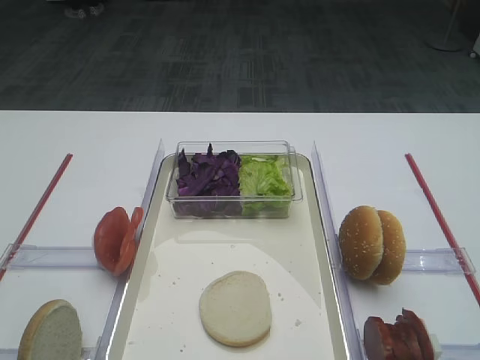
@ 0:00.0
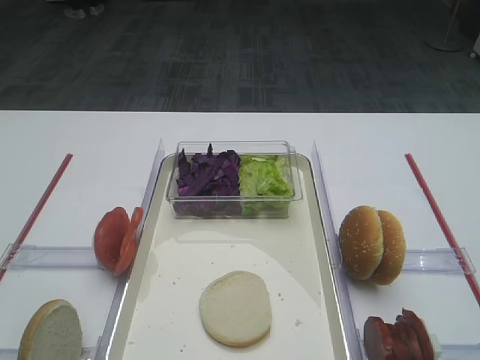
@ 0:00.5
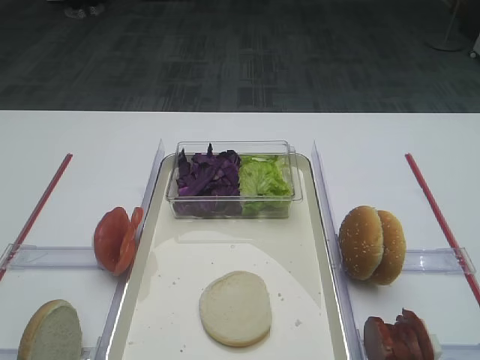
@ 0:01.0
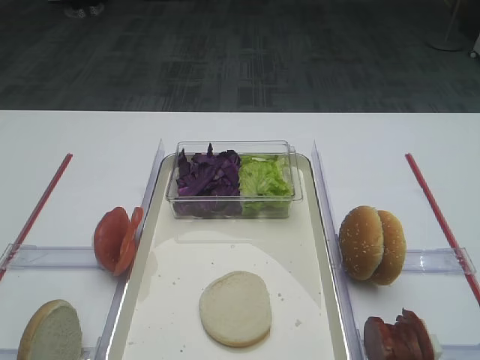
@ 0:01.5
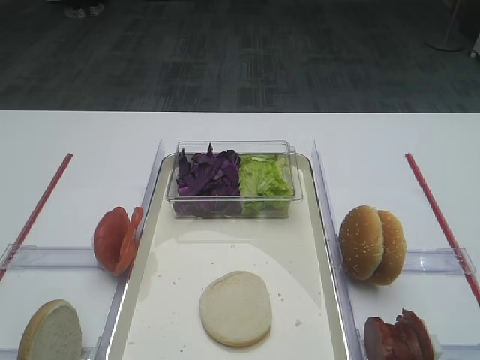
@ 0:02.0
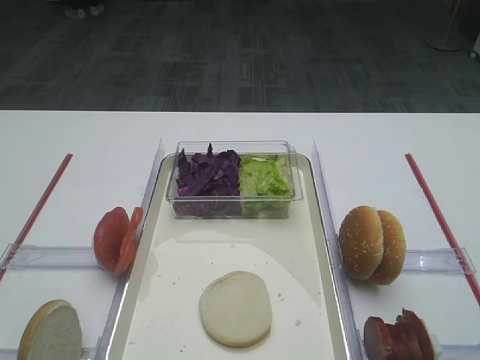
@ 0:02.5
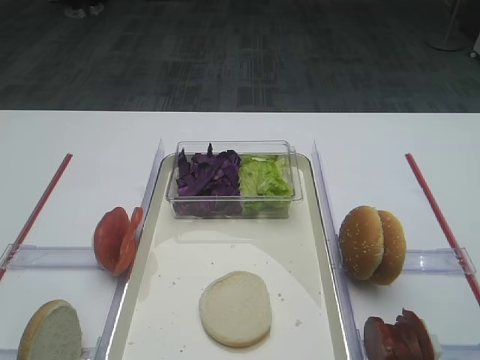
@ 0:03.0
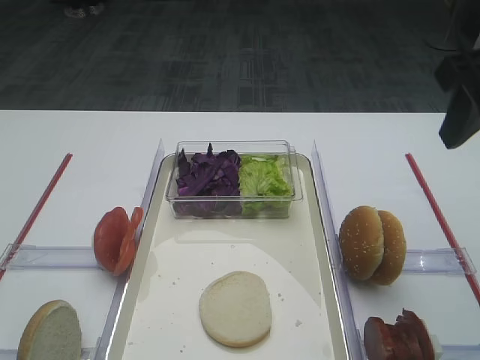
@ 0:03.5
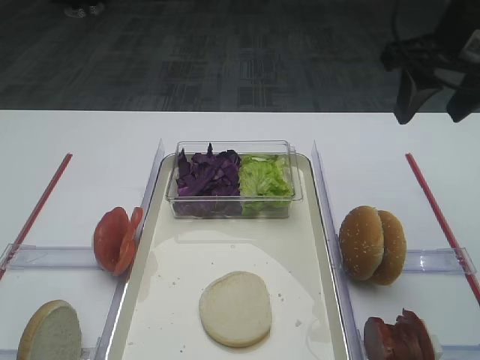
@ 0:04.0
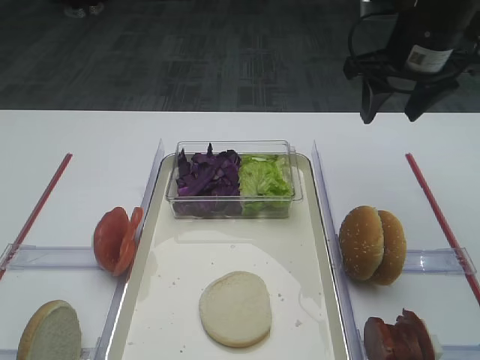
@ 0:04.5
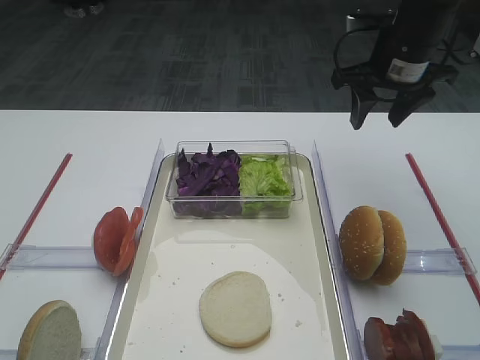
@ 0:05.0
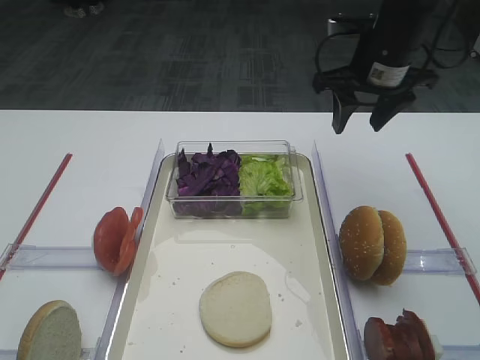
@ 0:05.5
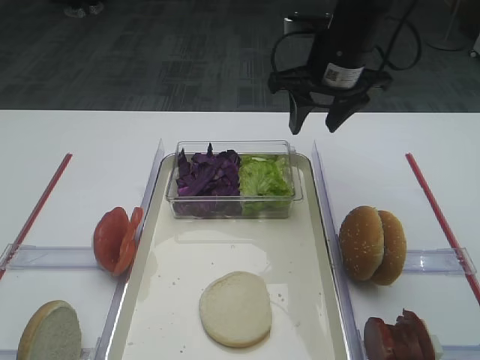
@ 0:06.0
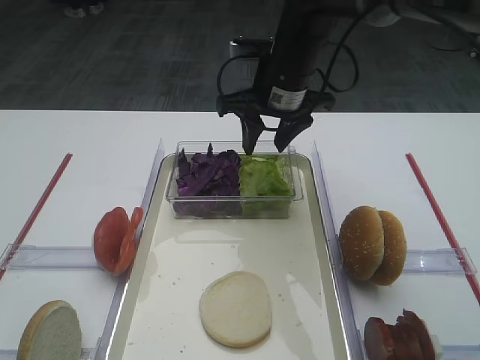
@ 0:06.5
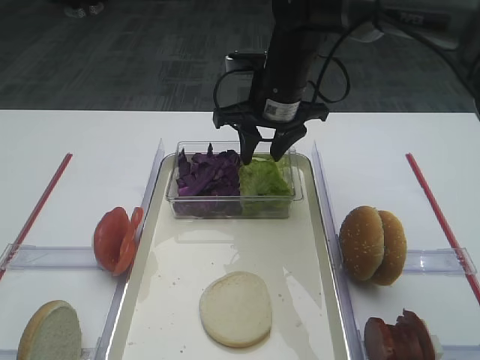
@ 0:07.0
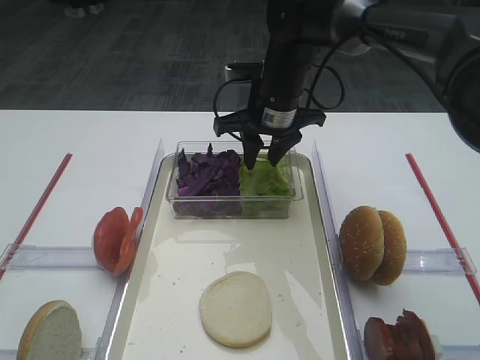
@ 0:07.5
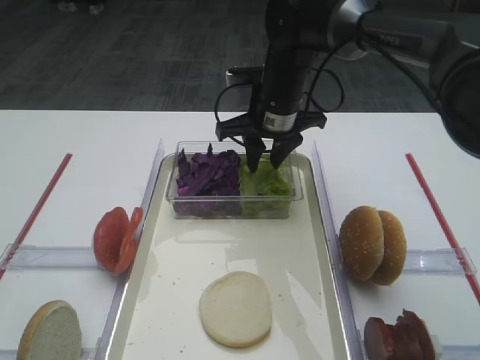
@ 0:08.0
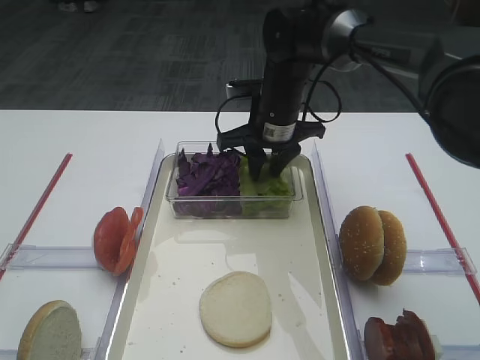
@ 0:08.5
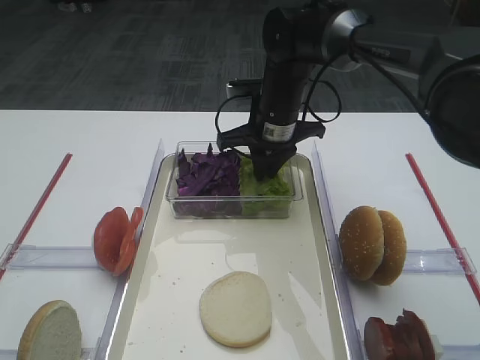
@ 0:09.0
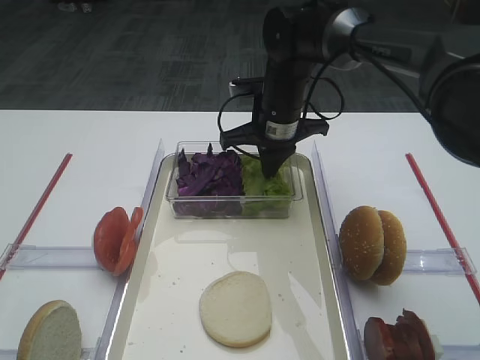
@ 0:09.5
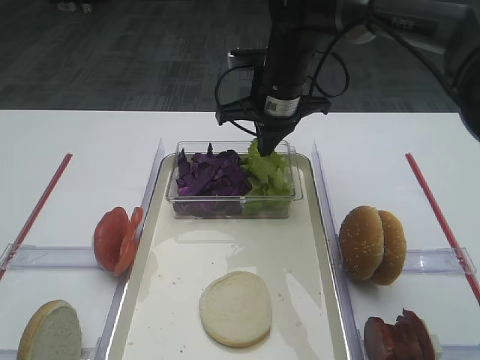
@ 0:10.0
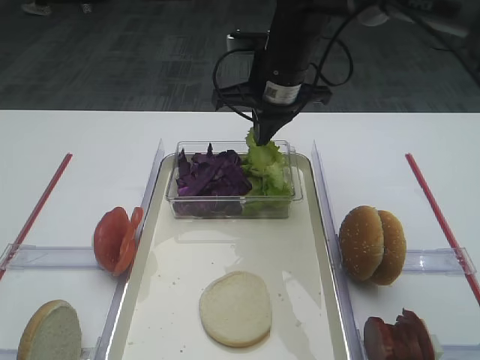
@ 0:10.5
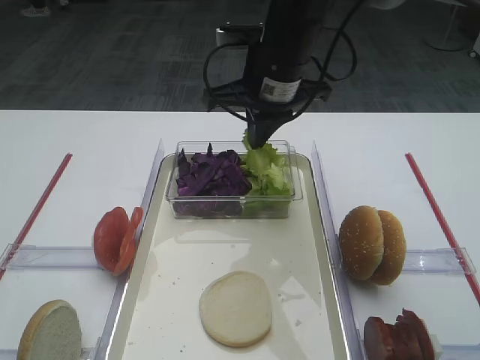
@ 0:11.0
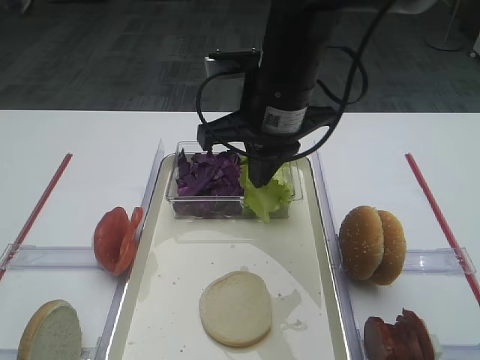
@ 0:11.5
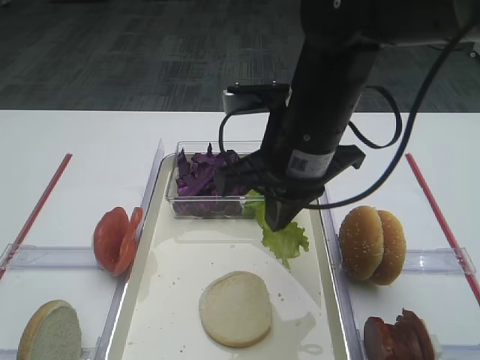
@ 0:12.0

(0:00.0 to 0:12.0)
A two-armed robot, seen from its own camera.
Step, 0:00.0 - 0:10.5: Pick up the lettuce leaf with the right gripper.
0:02.0 - 0:04.0: The right gripper moves forward, approximately 30 cm.
0:04.0 - 0:06.0: The right gripper is displaced forward, to the left and downward by roughly 15 cm.
0:06.0 - 0:08.0: The right gripper is displaced to the left and downward by roughly 10 cm.
0:08.0 - 0:10.0: The right gripper closes up.
0:10.0 - 0:12.0: The right gripper is displaced backward by some 15 cm.

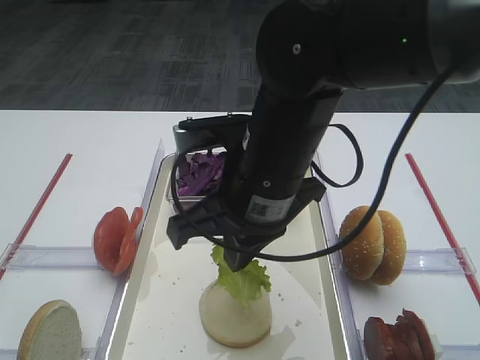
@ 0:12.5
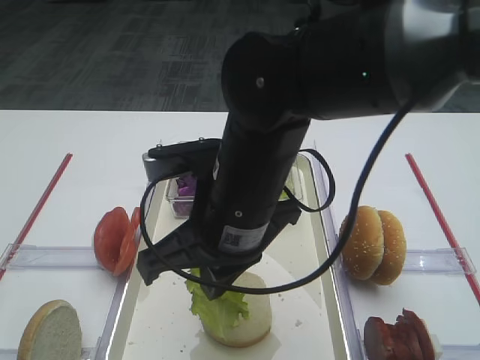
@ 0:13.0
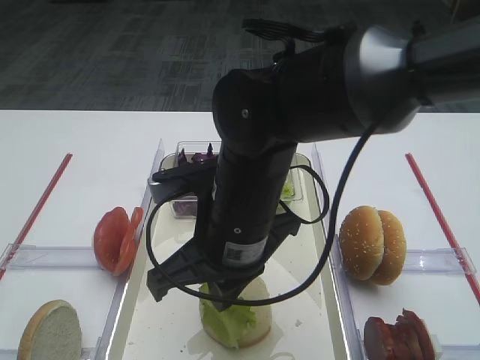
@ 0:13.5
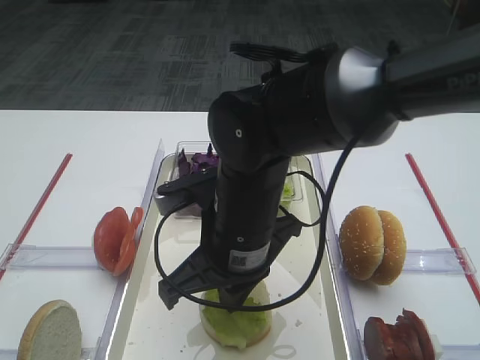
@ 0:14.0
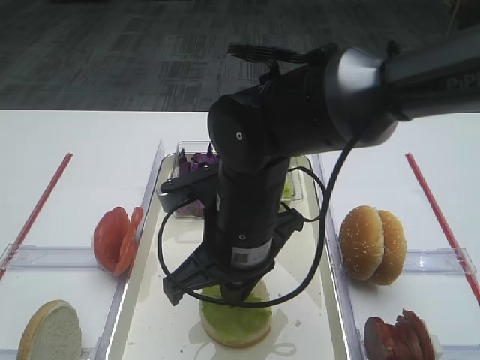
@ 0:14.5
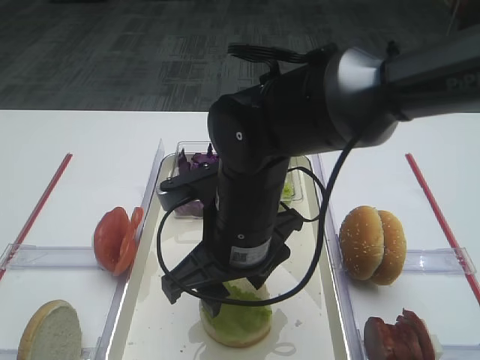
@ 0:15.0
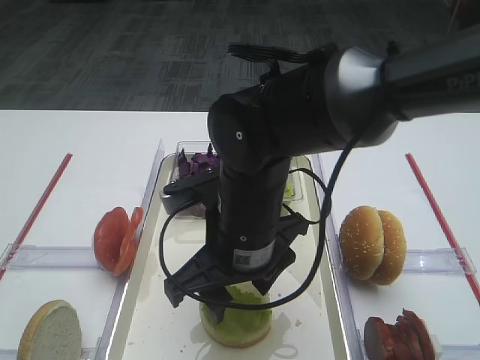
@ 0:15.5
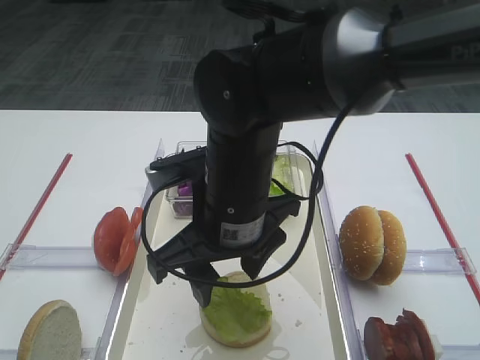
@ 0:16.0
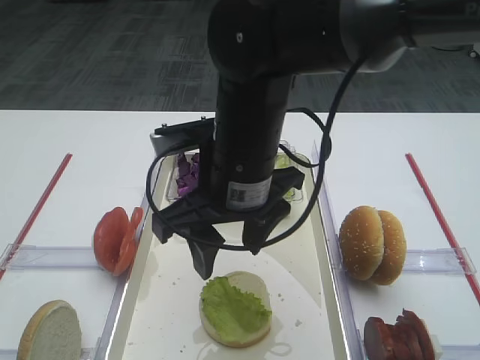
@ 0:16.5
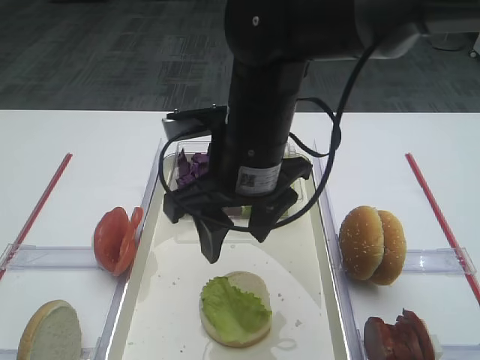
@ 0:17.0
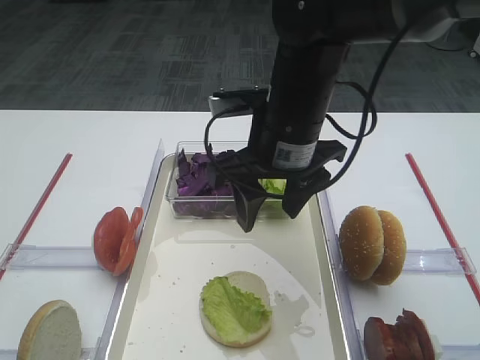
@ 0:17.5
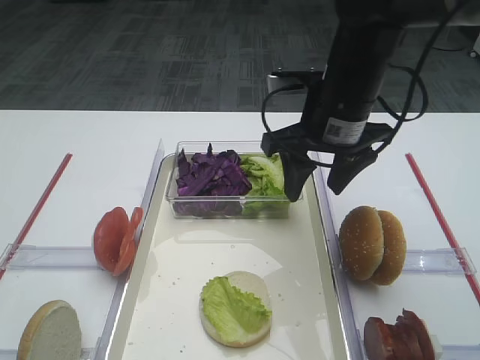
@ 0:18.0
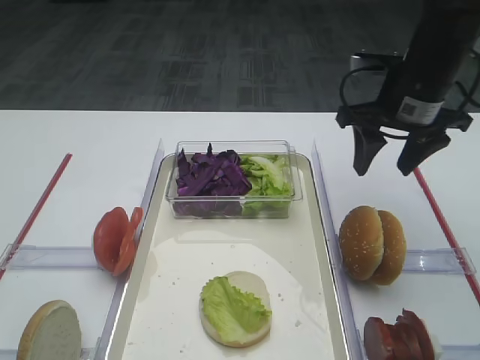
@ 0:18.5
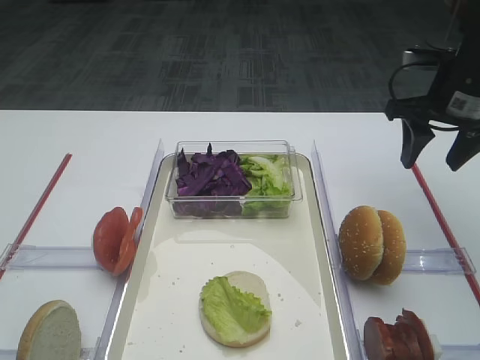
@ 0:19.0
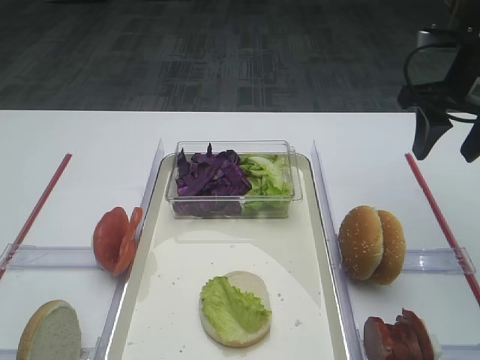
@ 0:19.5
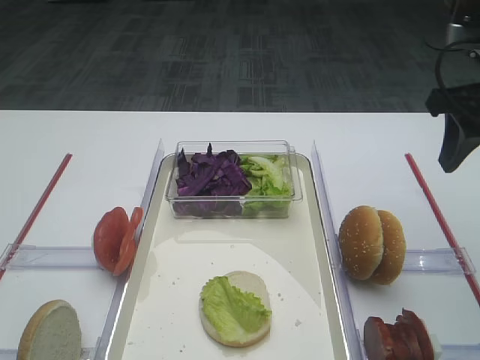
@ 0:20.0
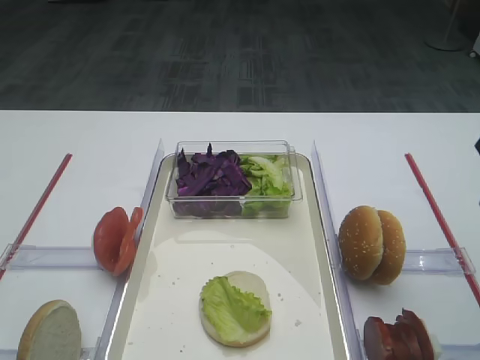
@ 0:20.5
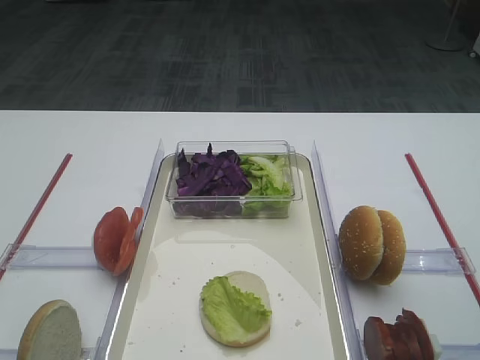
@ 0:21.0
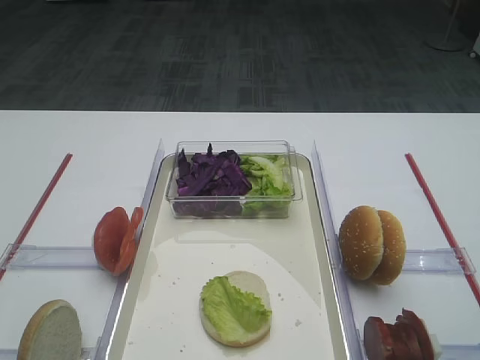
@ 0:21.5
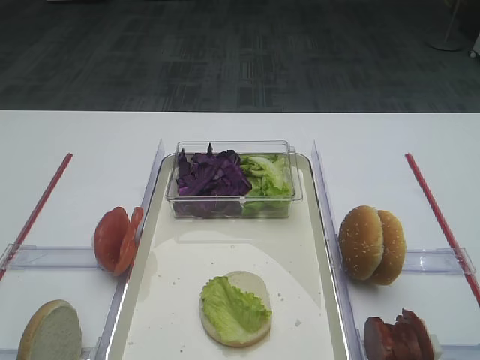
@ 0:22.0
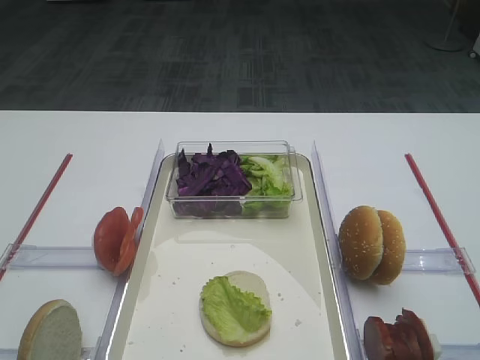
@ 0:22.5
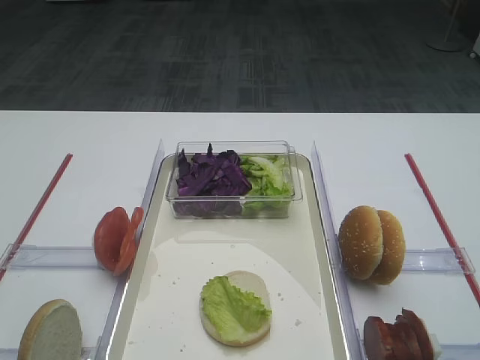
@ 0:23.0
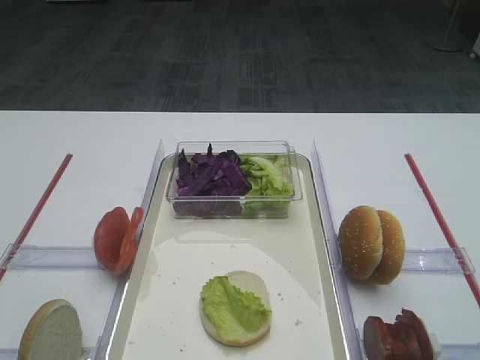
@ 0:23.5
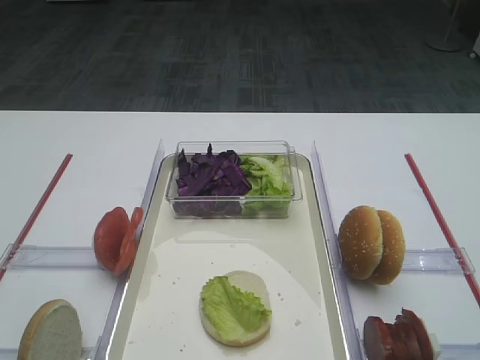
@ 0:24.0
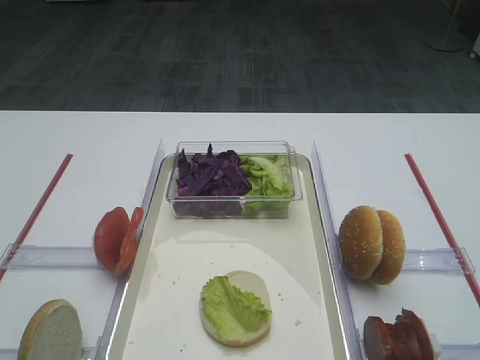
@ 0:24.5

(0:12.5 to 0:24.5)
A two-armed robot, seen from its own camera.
Step, 0:12.5 - 0:16.5: Place the lettuce leaf on the bread slice with the right gripper.
0:12.5 - 0:14.5: The right gripper heads downward, covering approximately 5 cm.
0:14.5 - 0:16.5: The right gripper travels upward by some 5 cm, and opens.
0:16.5 - 0:18.5: The right gripper heads to the right and forward, covering roughly 20 cm.
0:18.5 - 0:20.5: The right gripper travels backward and to the right by approximately 15 cm.

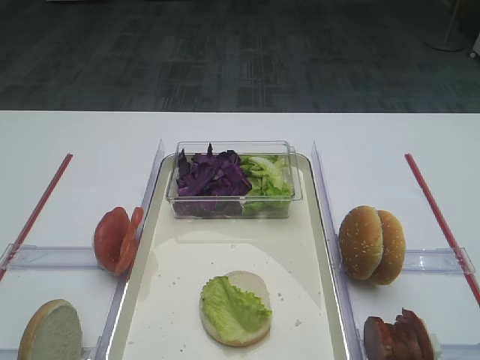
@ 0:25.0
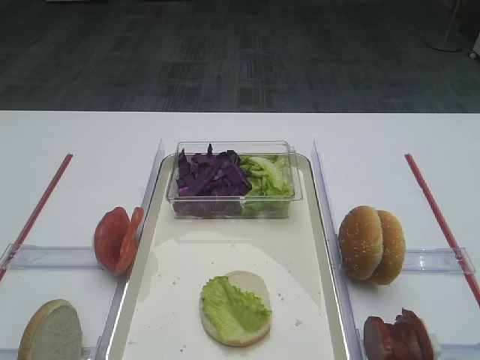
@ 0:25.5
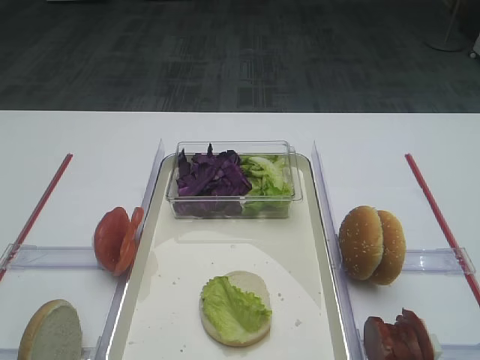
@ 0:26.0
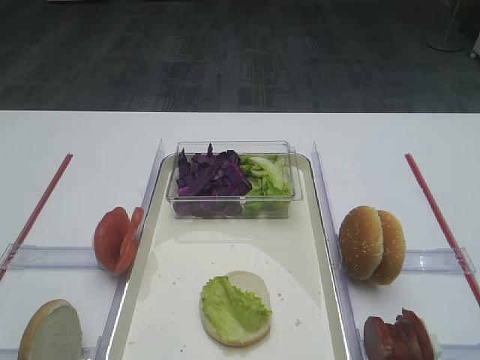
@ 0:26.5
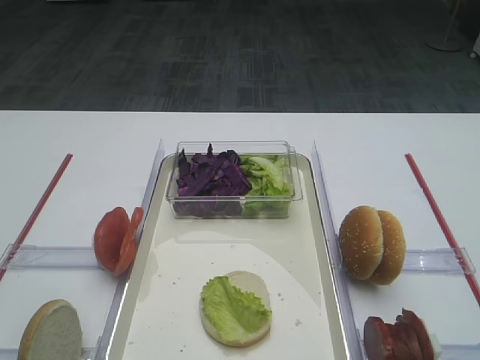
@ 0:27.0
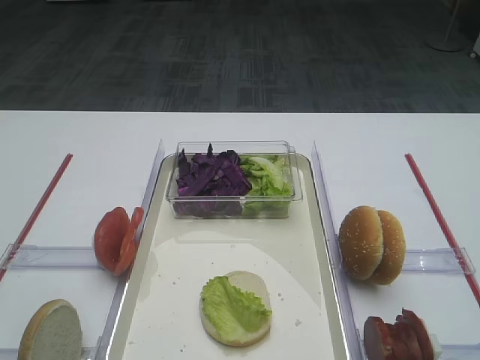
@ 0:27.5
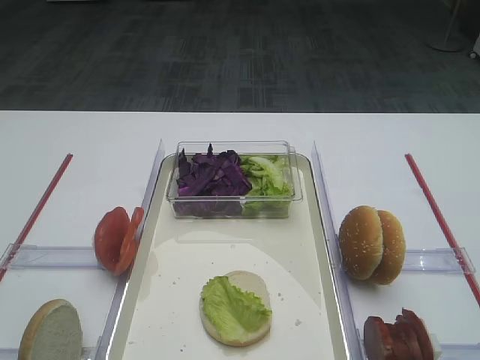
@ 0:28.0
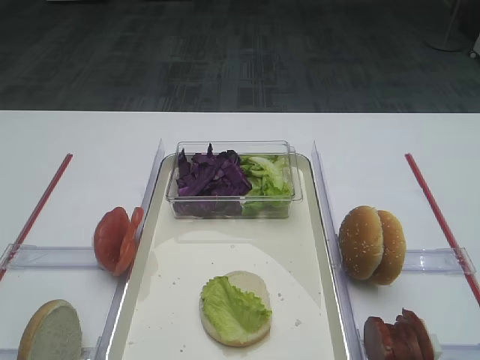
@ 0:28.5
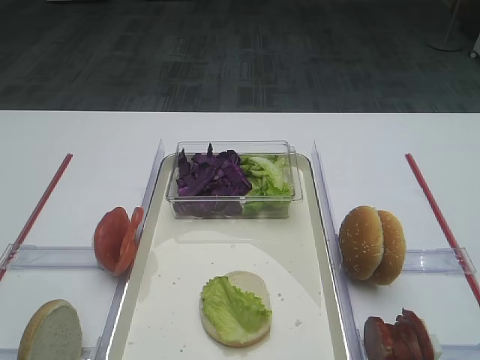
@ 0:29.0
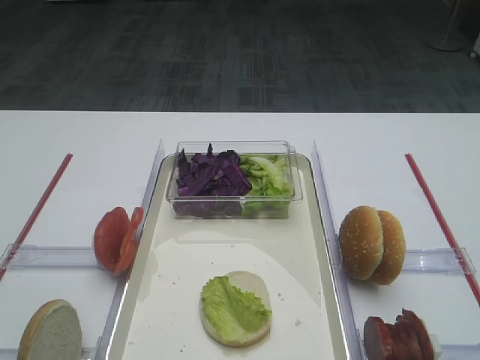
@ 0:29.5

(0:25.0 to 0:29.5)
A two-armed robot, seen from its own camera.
0:27.0 - 0:29.5: The two grippers keep their place.
